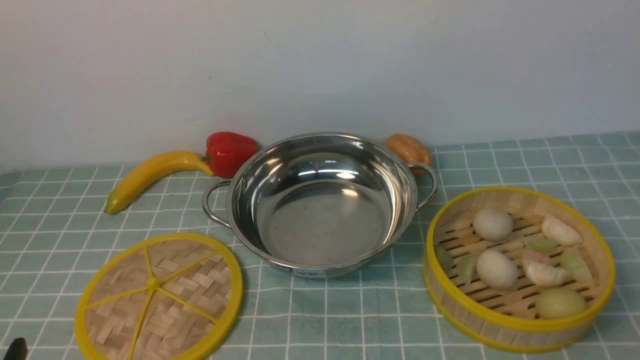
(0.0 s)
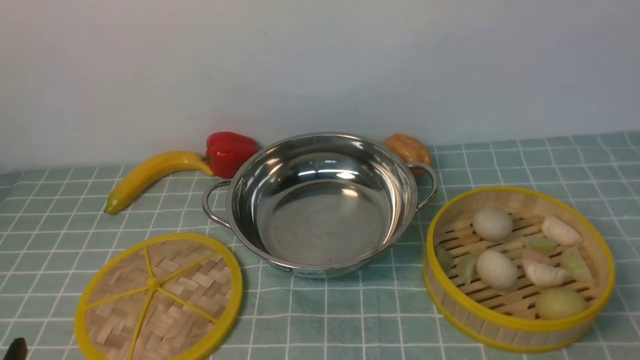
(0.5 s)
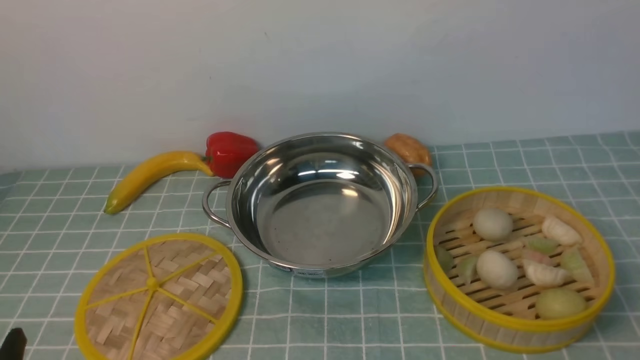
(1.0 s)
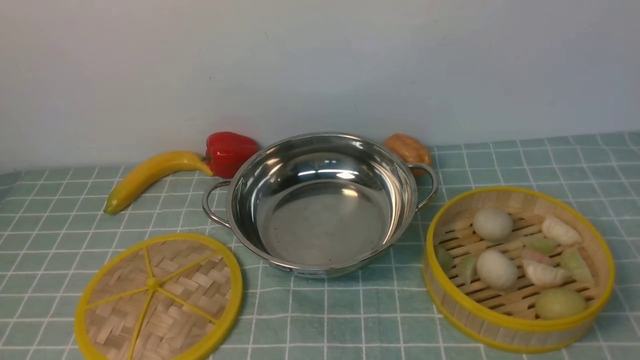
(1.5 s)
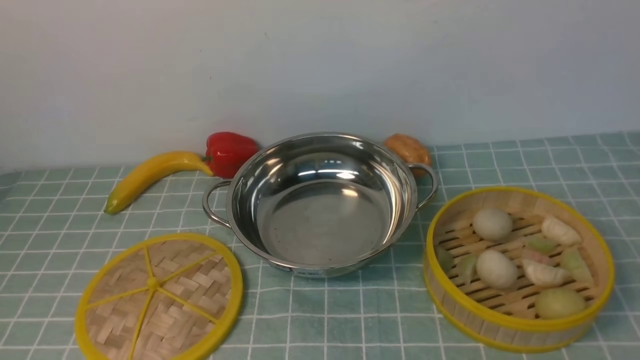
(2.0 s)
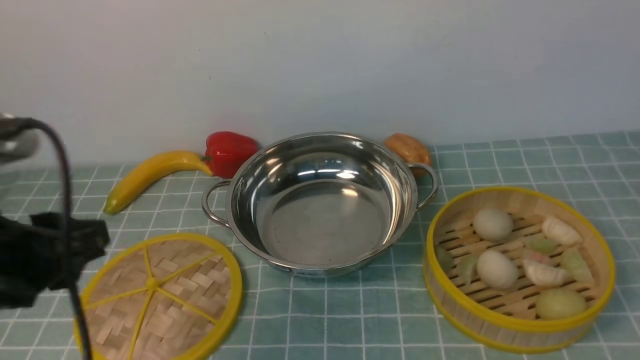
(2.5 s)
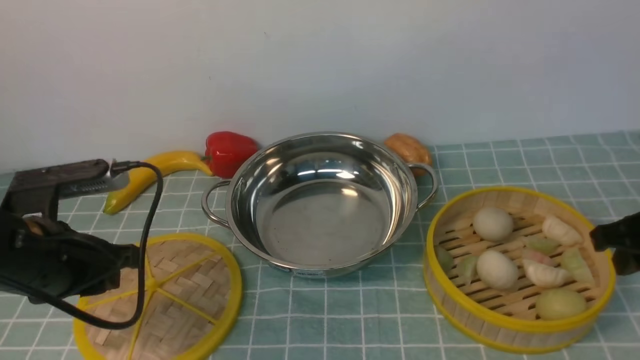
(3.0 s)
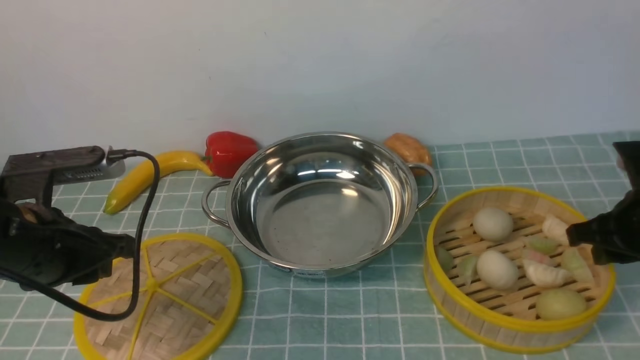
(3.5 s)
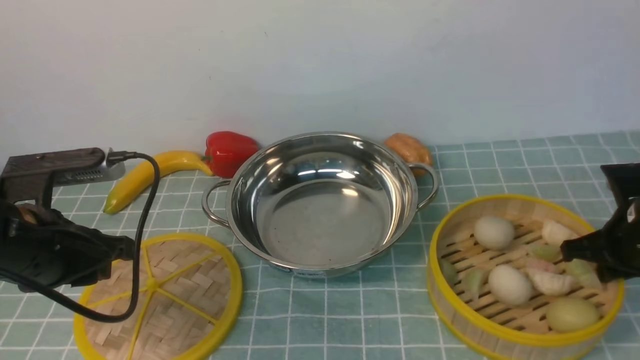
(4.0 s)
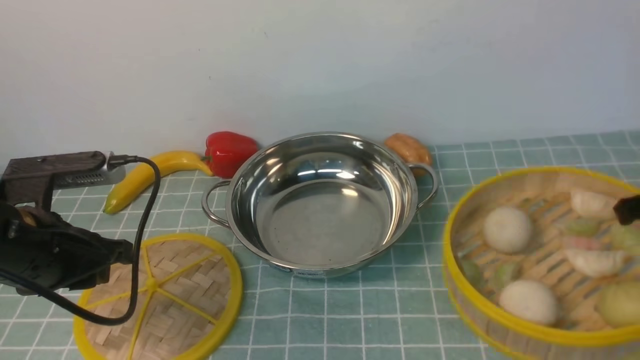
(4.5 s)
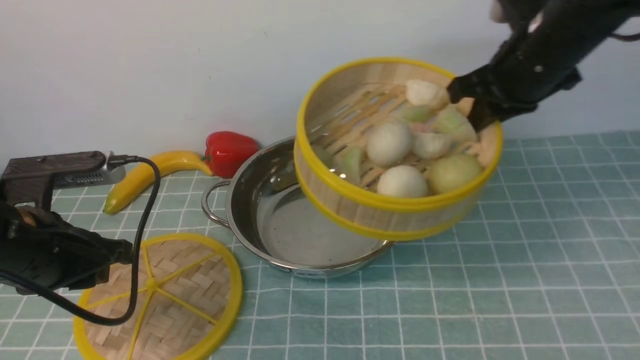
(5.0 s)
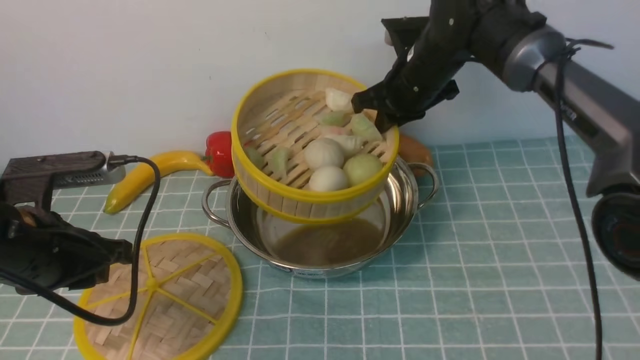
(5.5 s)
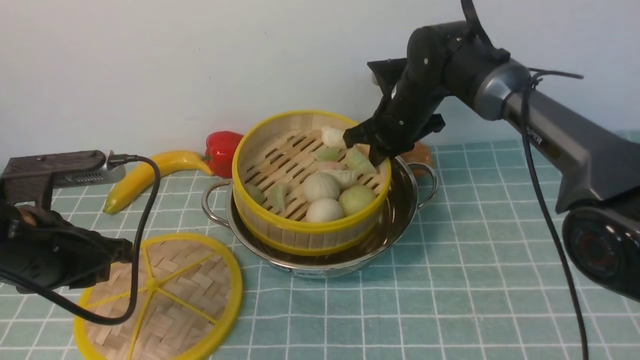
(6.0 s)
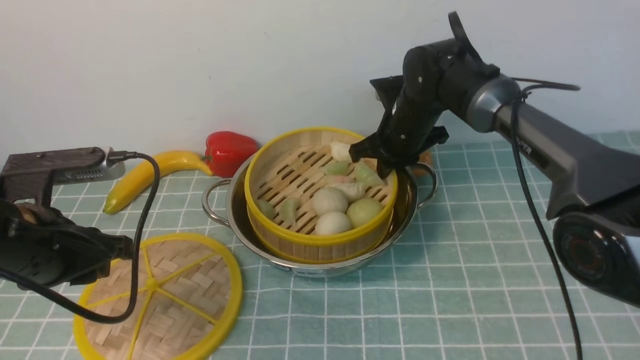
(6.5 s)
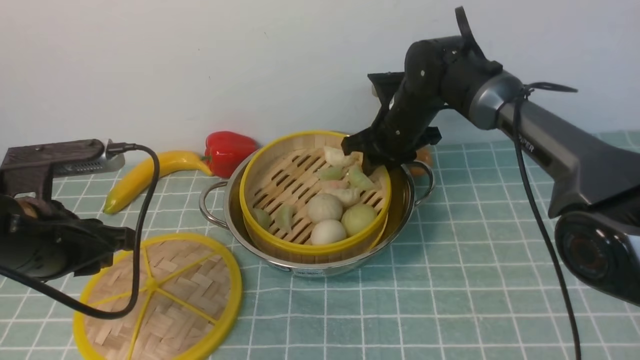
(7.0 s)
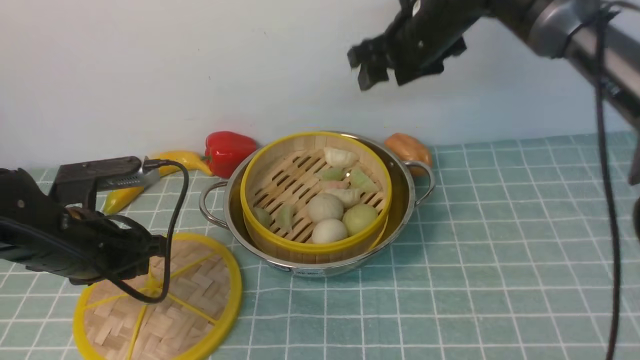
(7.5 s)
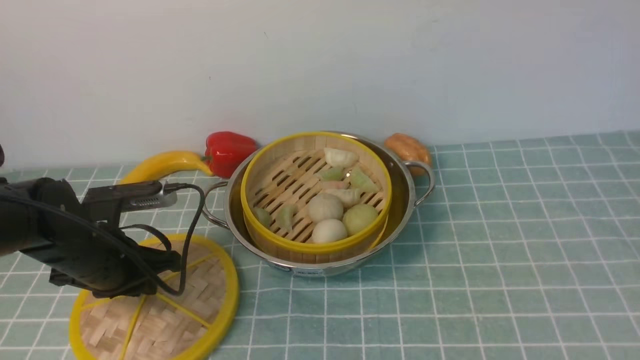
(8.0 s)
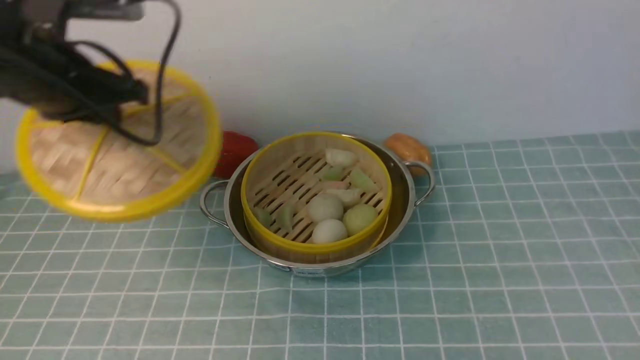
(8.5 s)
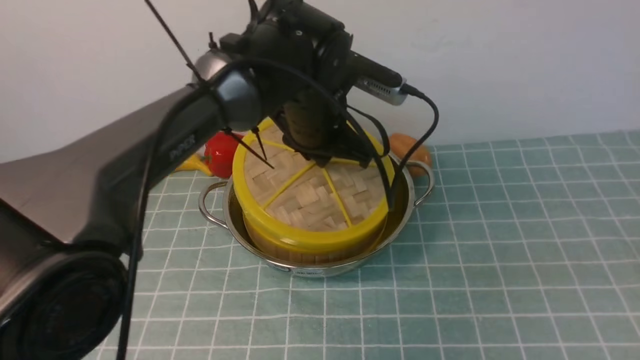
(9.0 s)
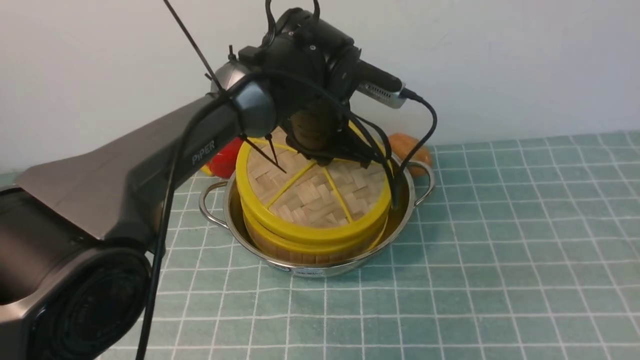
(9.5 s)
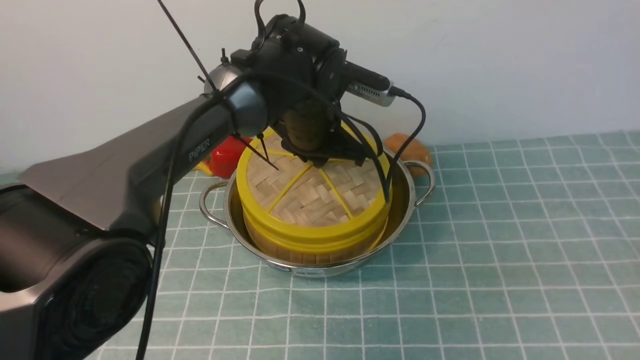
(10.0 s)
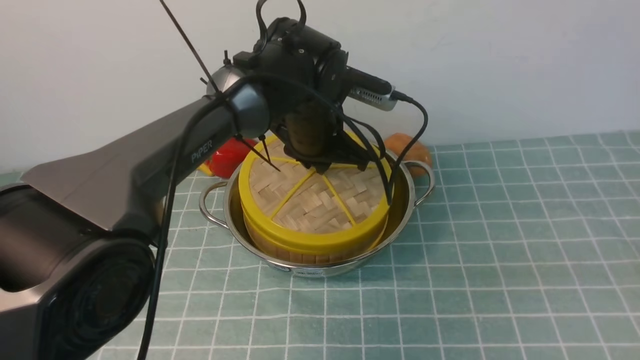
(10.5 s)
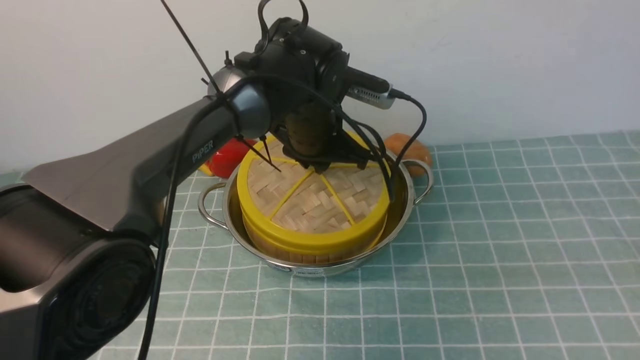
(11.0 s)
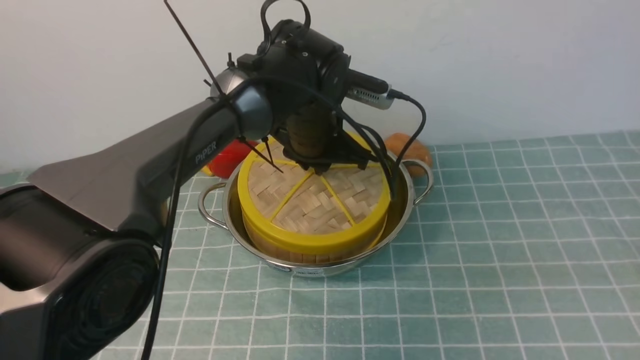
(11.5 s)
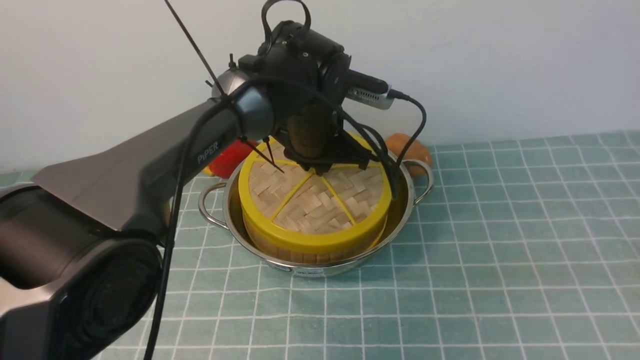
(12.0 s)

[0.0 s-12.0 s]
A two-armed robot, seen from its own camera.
Task of the whole recording: place the steamer in the pot on the blue tablecloth, and put the lid on the steamer.
Step, 0.0 to 4.0 s: use the right arm to lift the steamer closest to it.
Step, 4.5 to 7.0 s: use the right arm to put the steamer into the iron steamer pot in the middle.
2.0 to 4.0 s: The left gripper shifts some 20 cm forward. The right gripper is displaced forward and downward by roughly 35 cm.
4.0 to 6.0 s: The right gripper travels to the left and forward by about 30 cm.
6.0 to 8.0 s: The left gripper travels downward and forward by some 10 cm. Meanwhile the right gripper shifts roughly 40 cm upward and backward, and opens.
8.0 to 10.0 s: The right gripper shifts some 35 cm downward, backward and to the right, and closes its fingers. The left gripper is displaced to the right and forward by about 25 cm.
10.0 to 12.0 s: The grippers make only small movements.

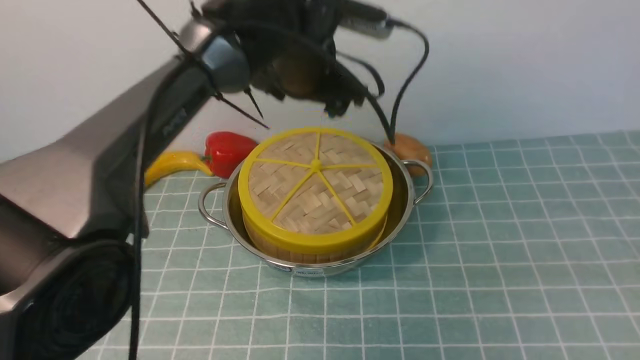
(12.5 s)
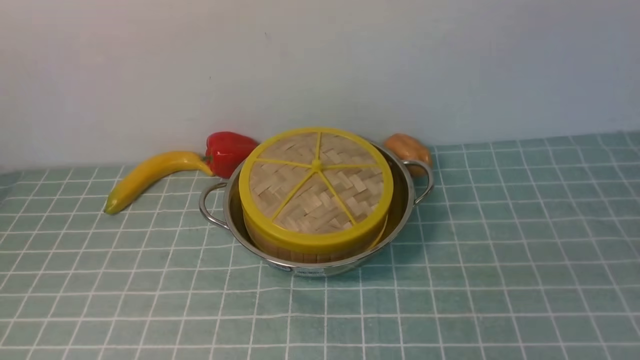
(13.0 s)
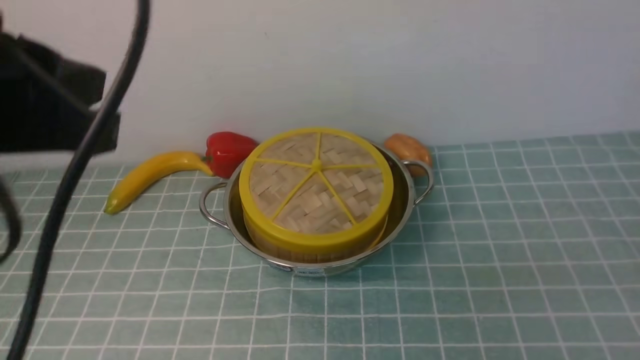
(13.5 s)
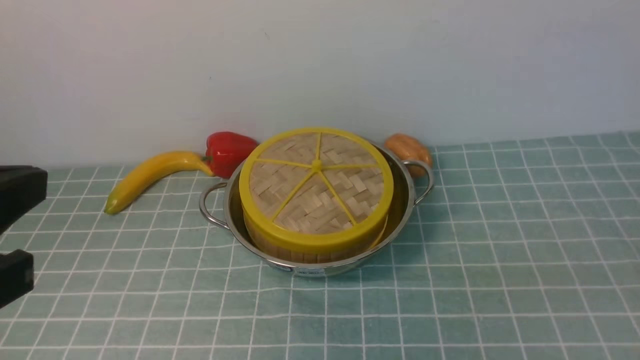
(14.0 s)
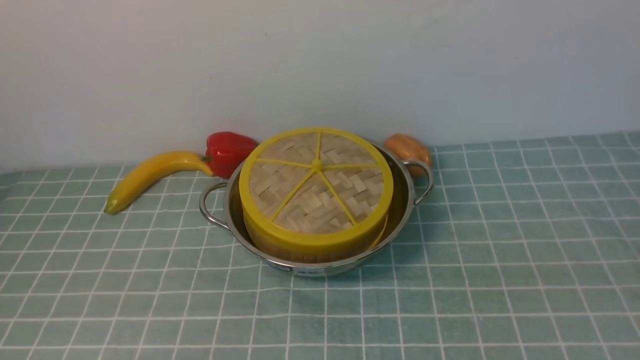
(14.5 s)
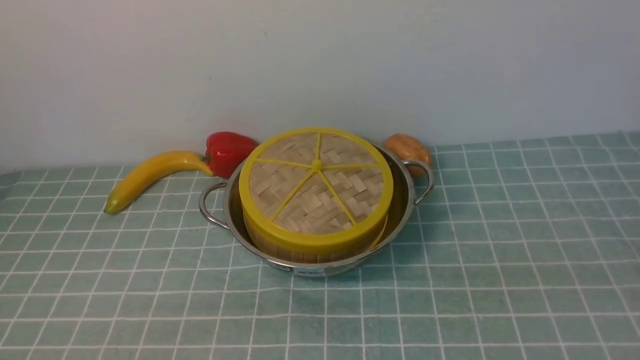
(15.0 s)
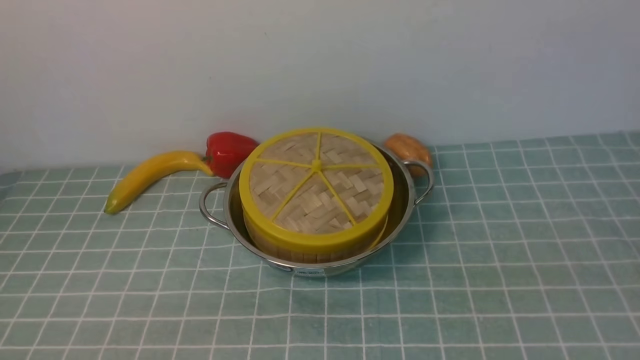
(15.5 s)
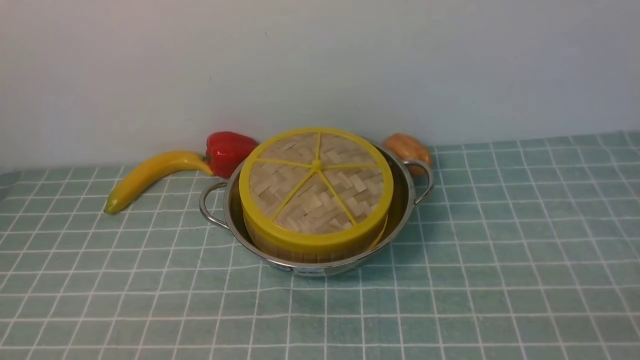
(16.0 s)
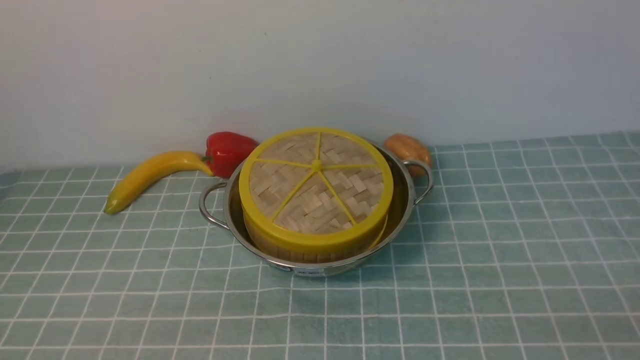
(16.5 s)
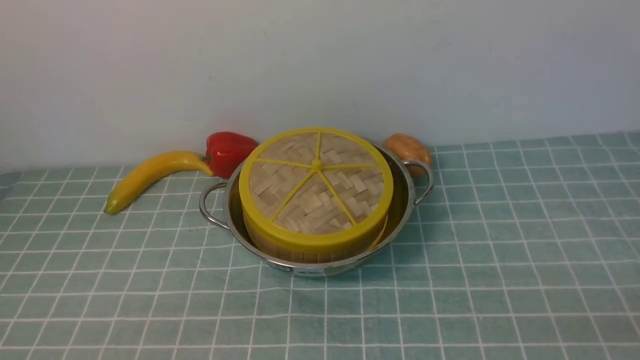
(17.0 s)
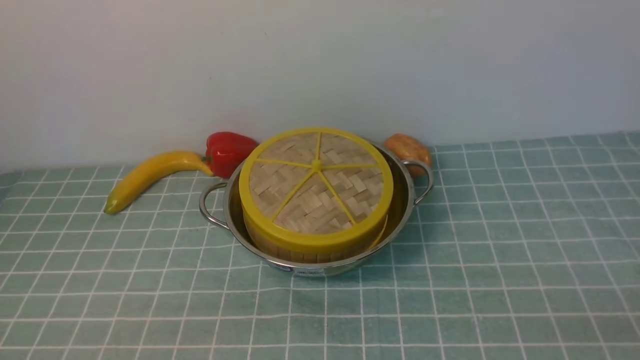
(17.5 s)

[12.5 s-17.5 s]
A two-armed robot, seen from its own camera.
Task of the whole recording: place the steamer in the pot on the blue tablecloth, and put the lid on the steamer.
12.5 to 15.0 s: The left gripper moves backward and to the left, some 40 cm, and closes its fingers. Meanwhile the right gripper goes roughly 5 cm downward.
